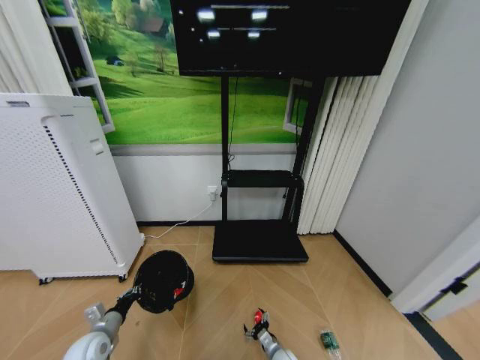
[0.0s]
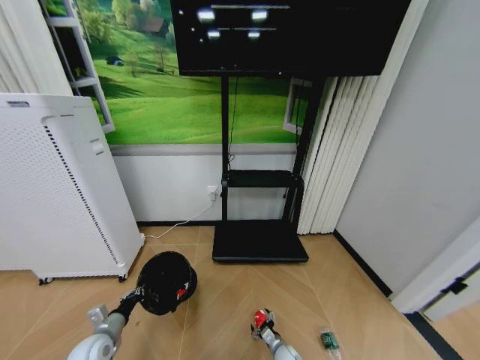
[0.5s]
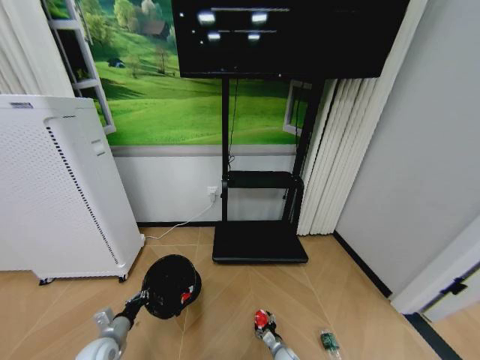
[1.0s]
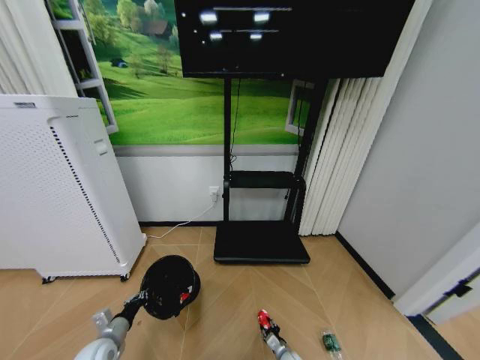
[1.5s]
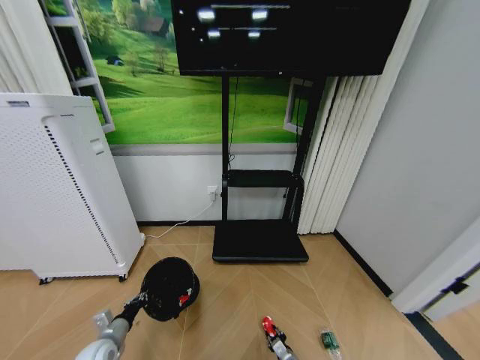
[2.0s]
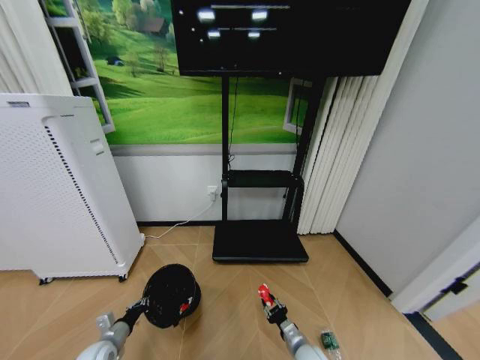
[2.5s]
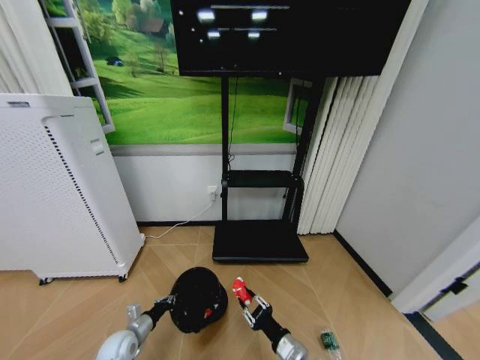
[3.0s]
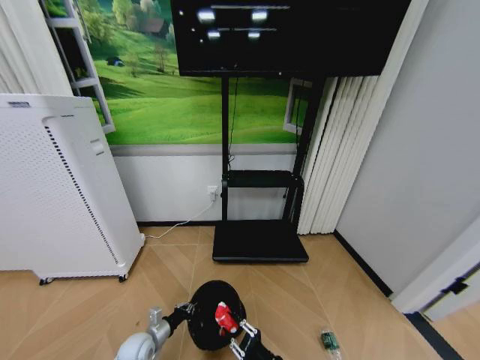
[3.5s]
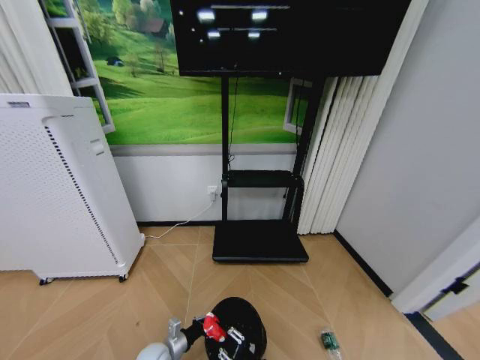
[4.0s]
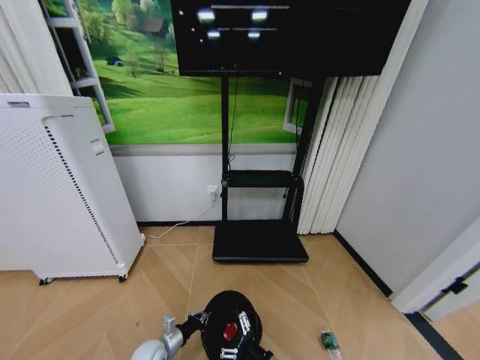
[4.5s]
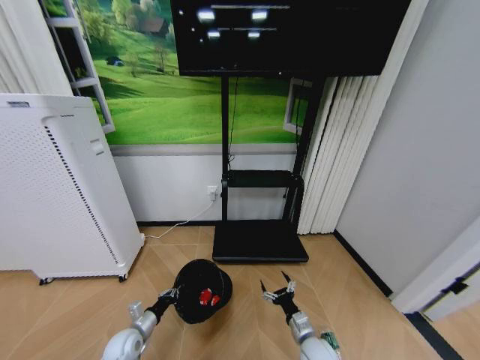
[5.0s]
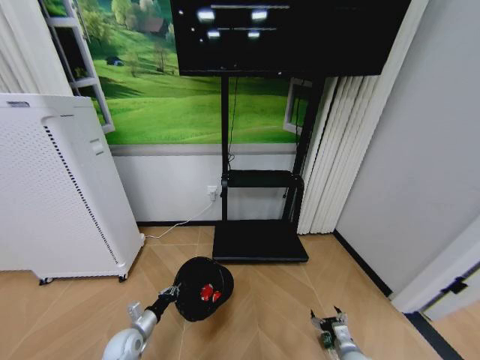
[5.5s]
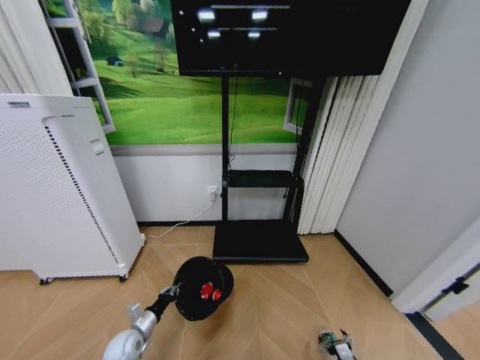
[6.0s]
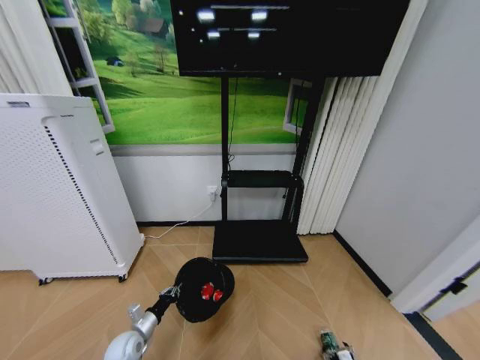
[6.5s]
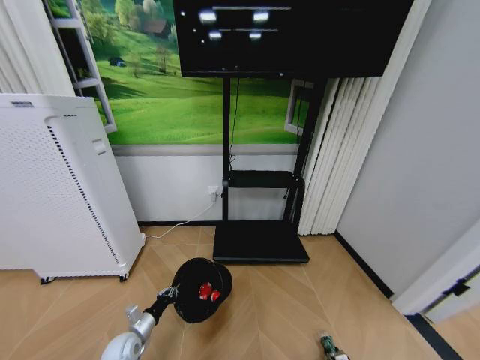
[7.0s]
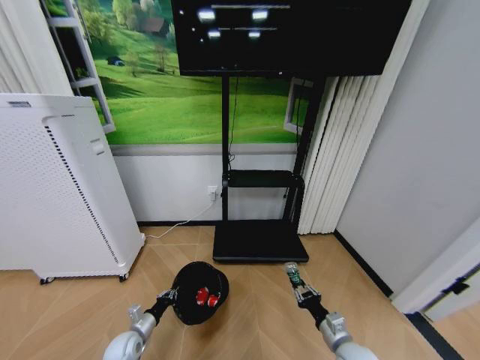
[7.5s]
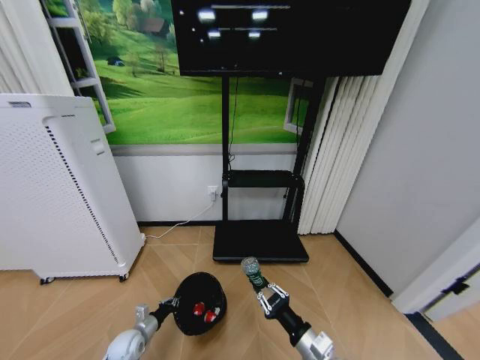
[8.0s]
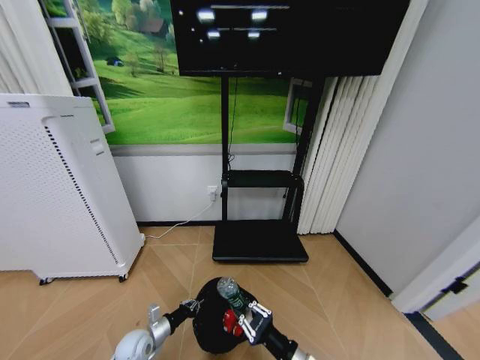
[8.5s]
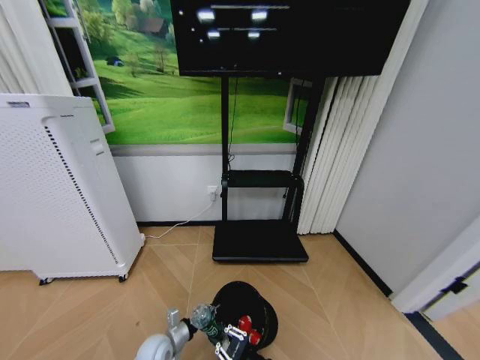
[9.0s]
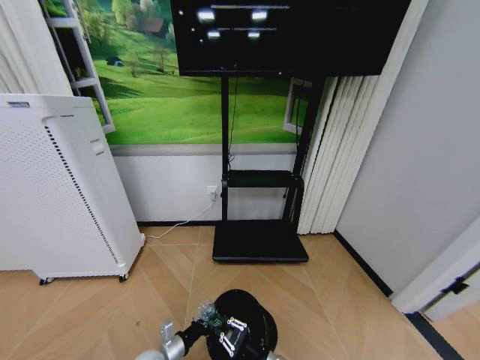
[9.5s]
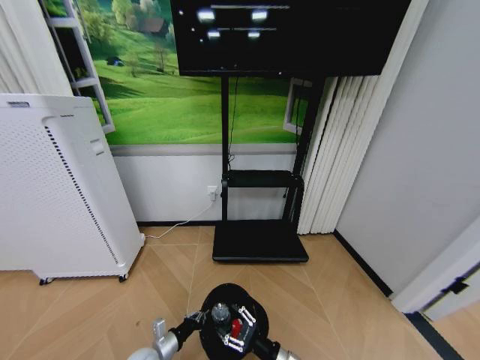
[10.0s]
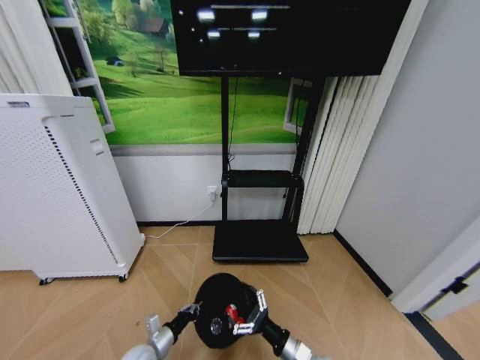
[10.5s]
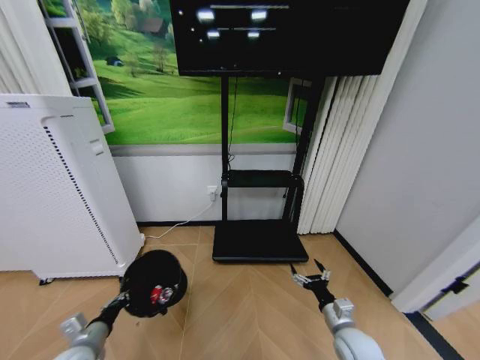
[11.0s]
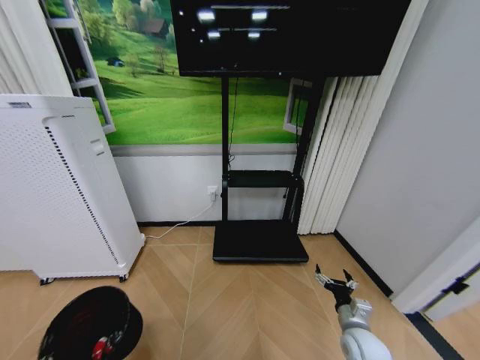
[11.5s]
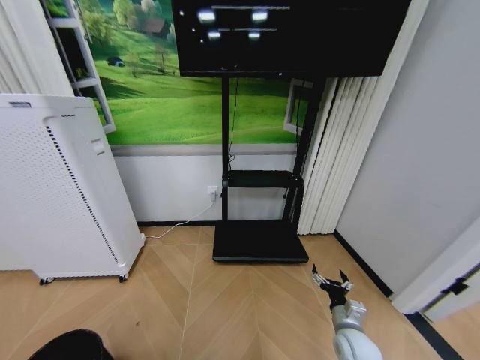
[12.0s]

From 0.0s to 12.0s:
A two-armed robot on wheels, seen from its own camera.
Task of the whole recording: Pick up the trash bin and place the garbage on the floor into it.
From 0.0s to 2.0s: The right gripper ends up some 5 cm from where it was, and closes up.
From 2.0s to 4.0s: The right gripper moves upward and backward, roughly 20 cm, while the left gripper moves to the right and downward, about 15 cm.
From 4.0s to 6.0s: The right gripper moves to the right and downward, some 30 cm, and opens up, while the left gripper shifts roughly 10 cm to the left.
From 6.0s to 8.0s: The right gripper moves upward and to the left, roughly 30 cm, and closes its fingers.
From 8.0s to 10.0s: The left gripper travels to the right and backward by approximately 10 cm. Meanwhile the right gripper is displaced downward by approximately 10 cm, and opens up.
From 10.0s to 12.0s: The left gripper goes some 35 cm backward, to the left and upward. The right gripper moves to the right and forward, about 15 cm, and opens.

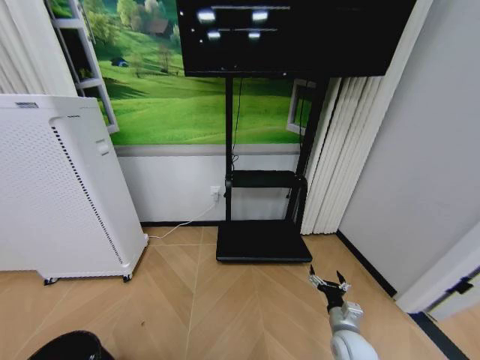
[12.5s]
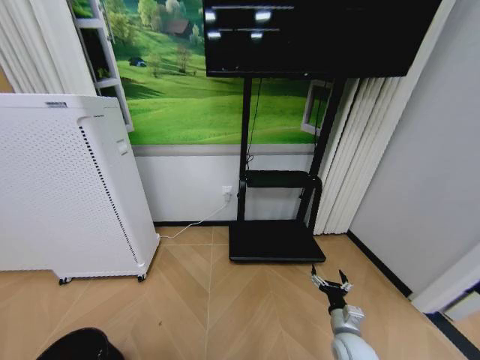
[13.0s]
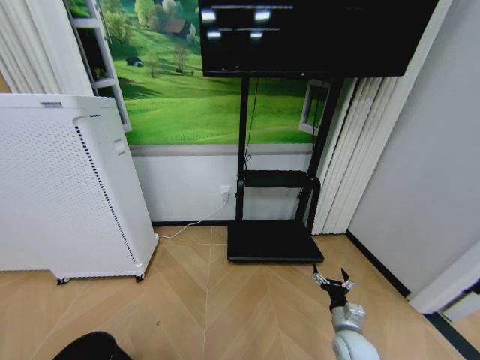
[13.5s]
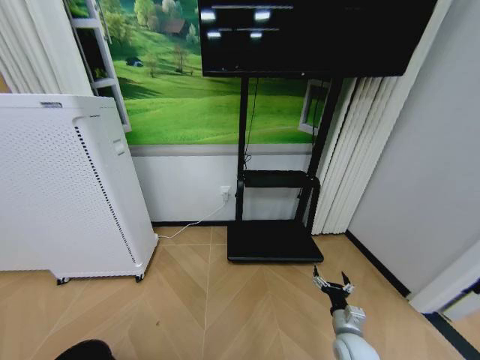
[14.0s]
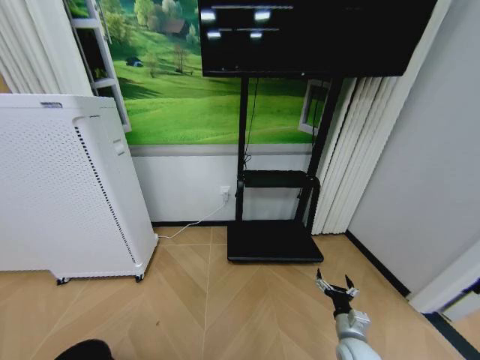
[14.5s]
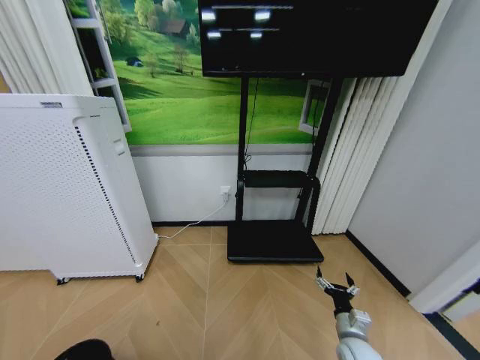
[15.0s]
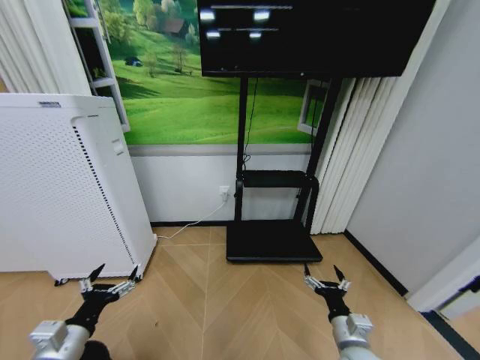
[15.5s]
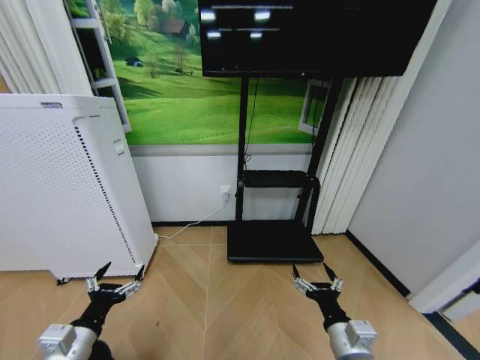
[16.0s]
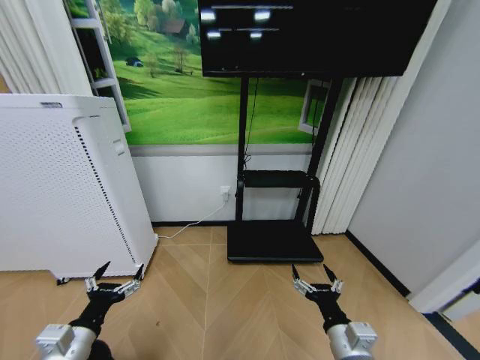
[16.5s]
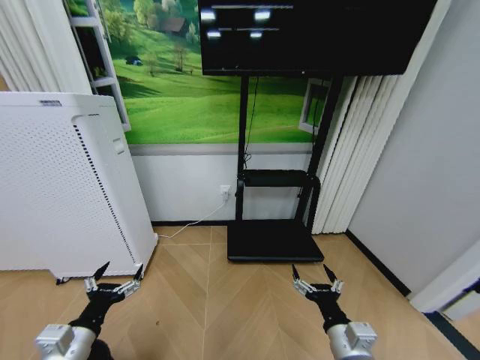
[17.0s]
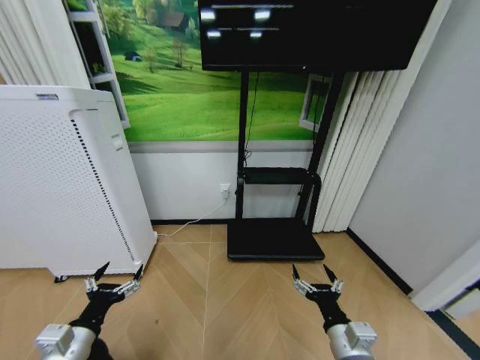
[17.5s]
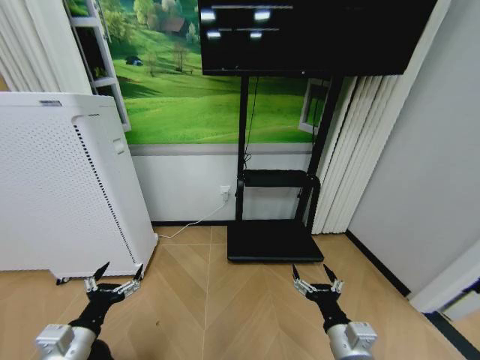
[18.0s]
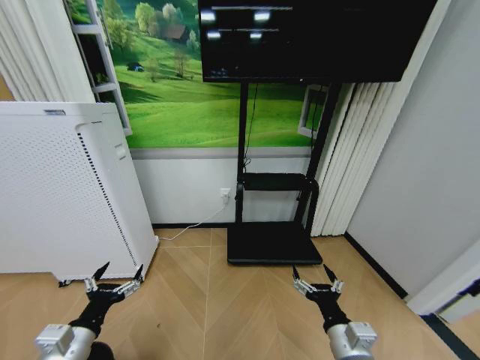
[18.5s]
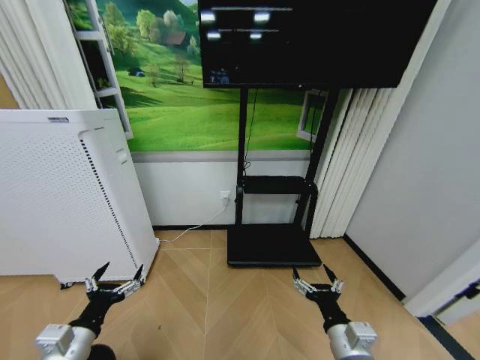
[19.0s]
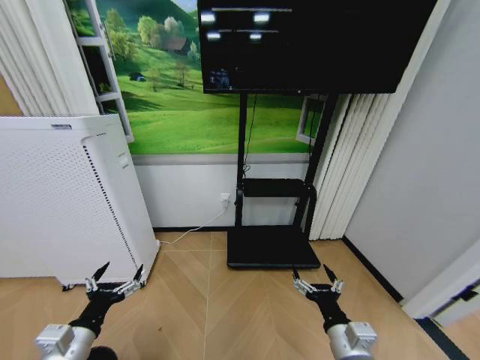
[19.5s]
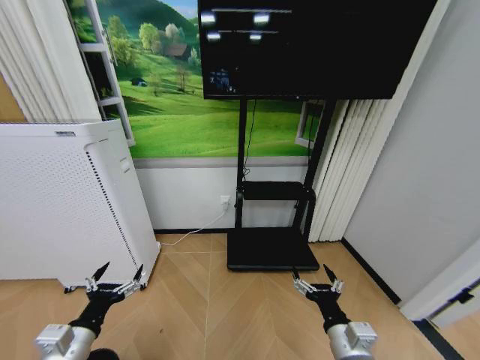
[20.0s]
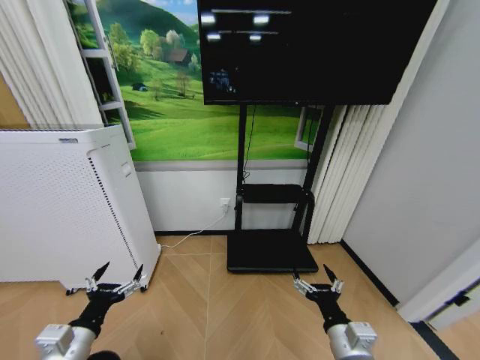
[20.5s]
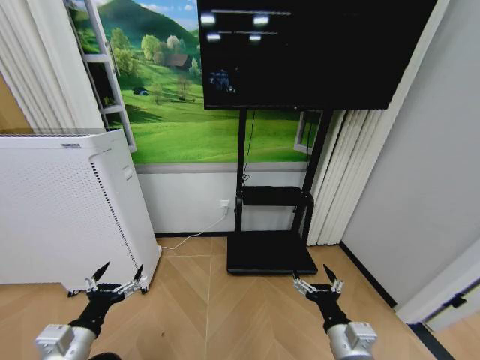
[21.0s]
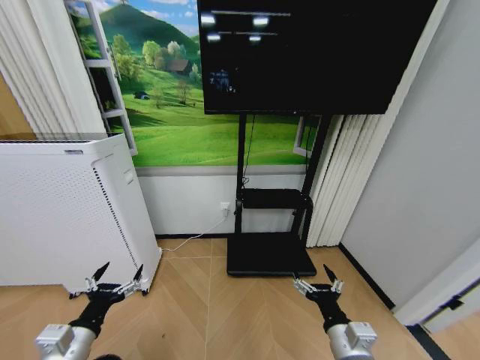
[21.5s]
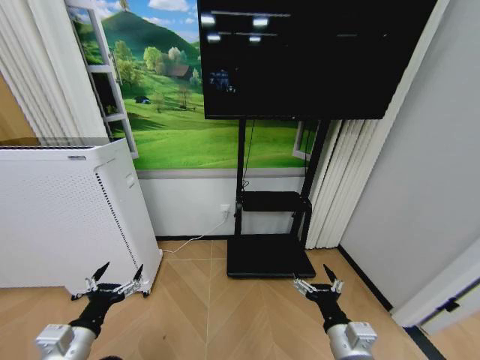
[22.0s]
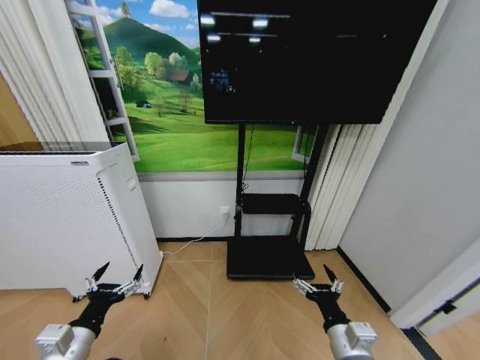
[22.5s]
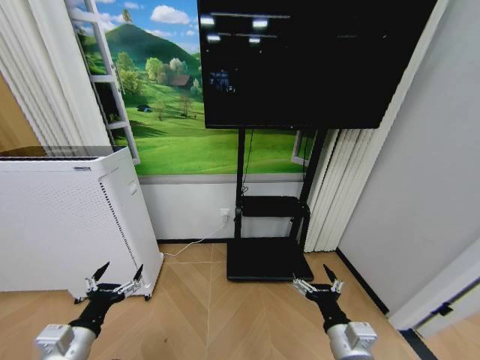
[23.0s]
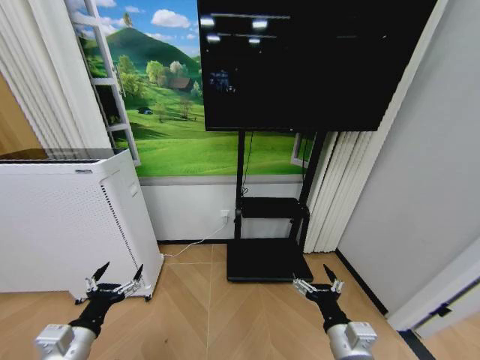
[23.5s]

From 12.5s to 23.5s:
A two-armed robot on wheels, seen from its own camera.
Task of the whole recording: Pick up the trash bin and place the garbage on the floor into it.
From 12.5s to 14.5s: The left gripper changes place by about 5 cm, and opens.
From 14.5s to 16.0s: The right gripper moves upward, to the left and backward, some 20 cm. Meanwhile the left gripper travels upward, to the right and forward by some 25 cm, and opens up.
From 16.0s to 23.5s: Both grippers stay put.

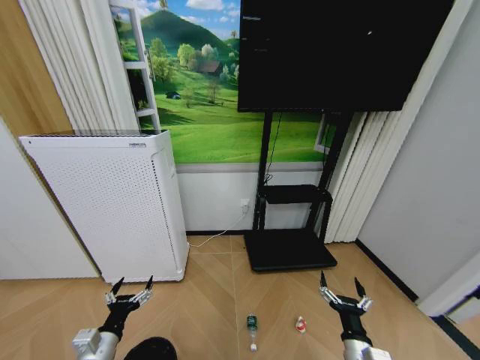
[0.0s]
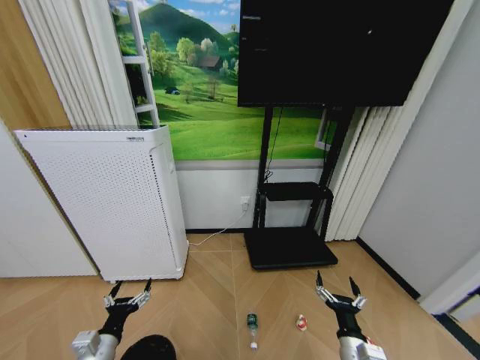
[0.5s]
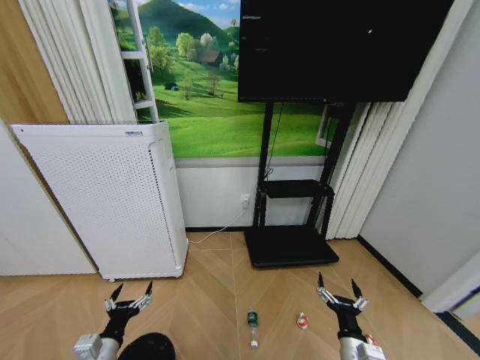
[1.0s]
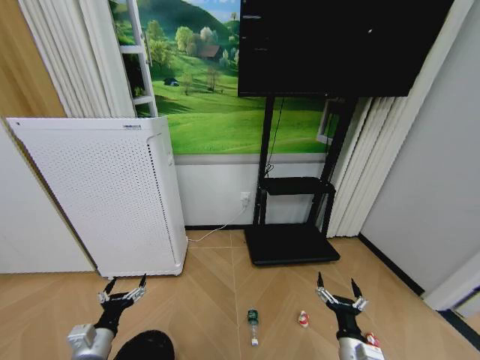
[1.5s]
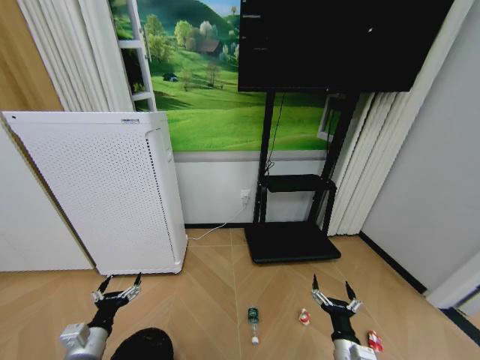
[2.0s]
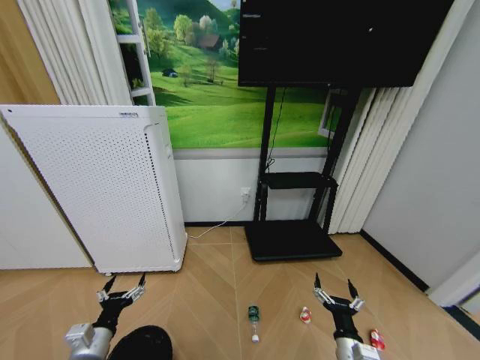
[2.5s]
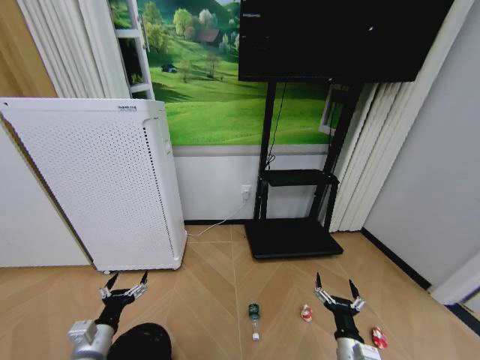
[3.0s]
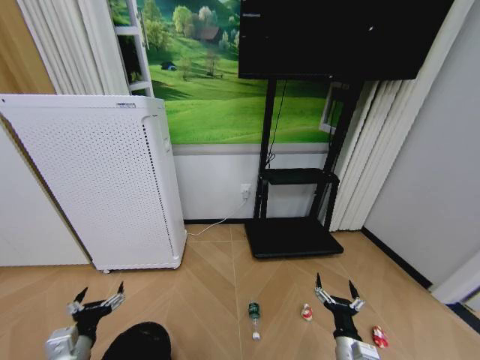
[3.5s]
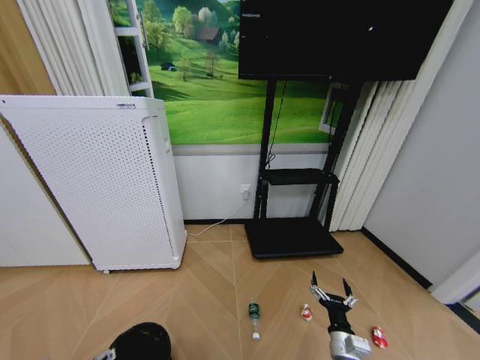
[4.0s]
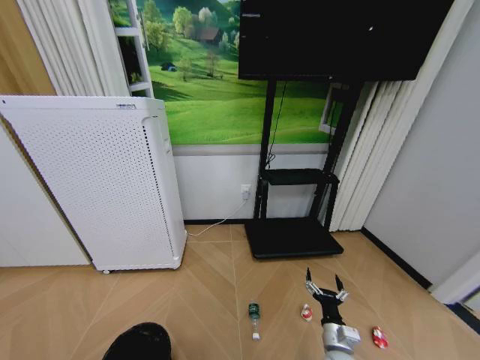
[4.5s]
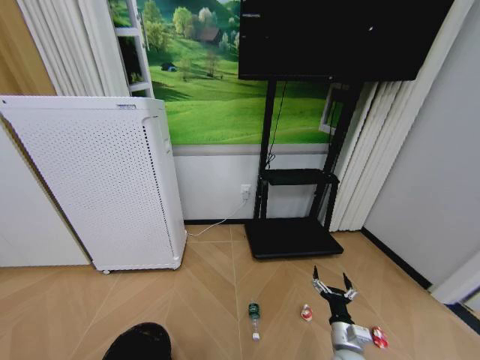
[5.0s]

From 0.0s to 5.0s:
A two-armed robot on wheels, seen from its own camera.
Task of the whole recording: Pick up the trash bin and place the garbage on the floor into it.
From 2.5s to 5.0s: The left gripper travels backward by some 10 cm.
